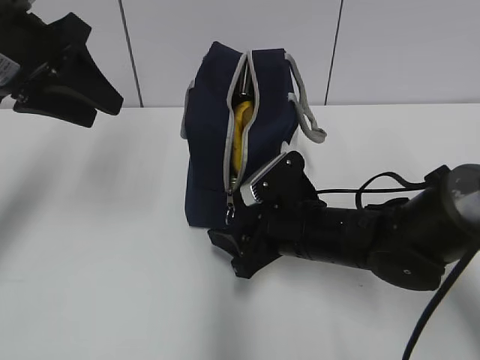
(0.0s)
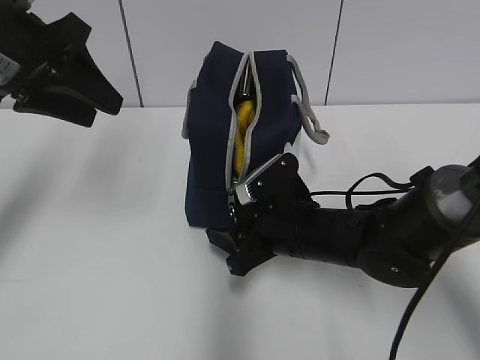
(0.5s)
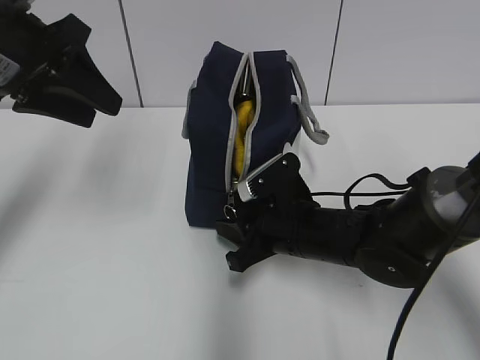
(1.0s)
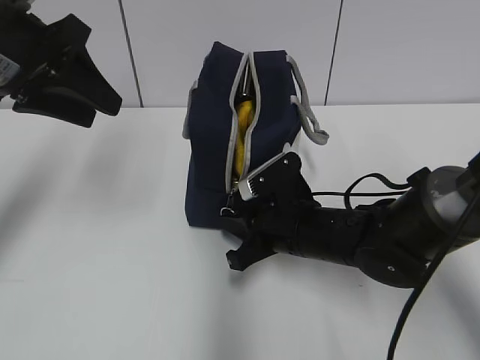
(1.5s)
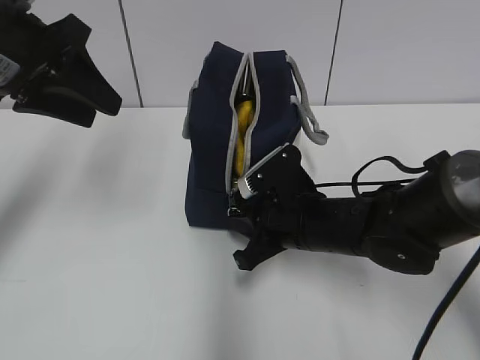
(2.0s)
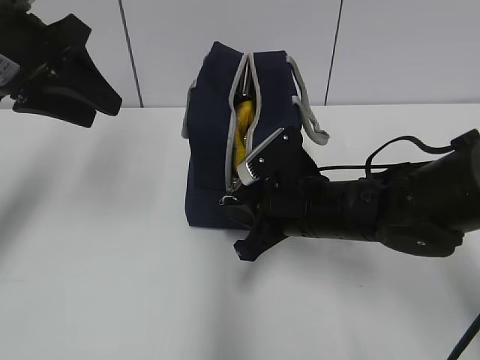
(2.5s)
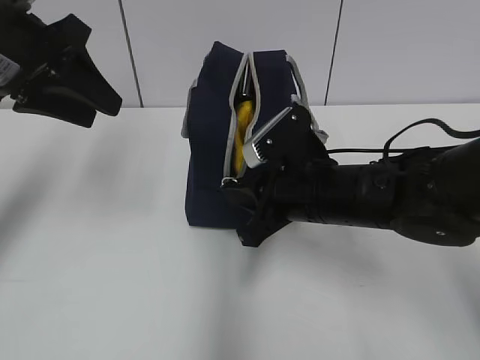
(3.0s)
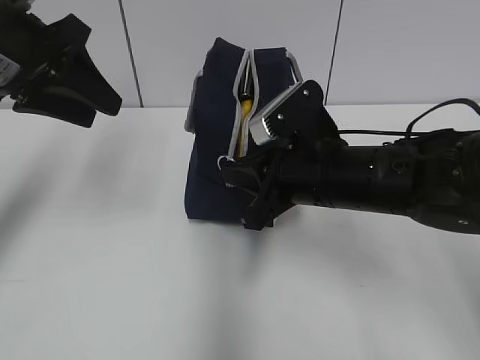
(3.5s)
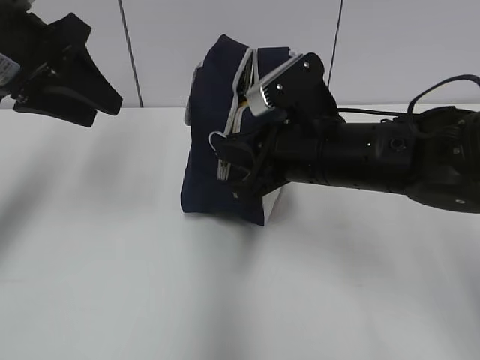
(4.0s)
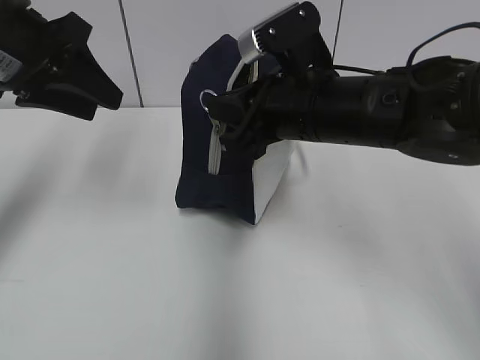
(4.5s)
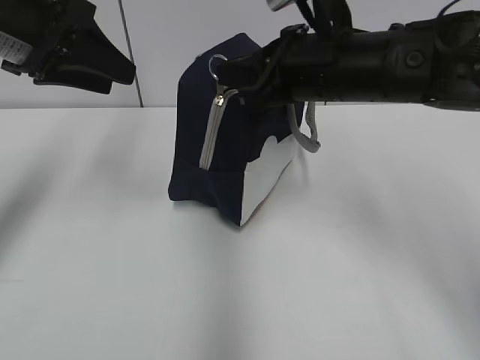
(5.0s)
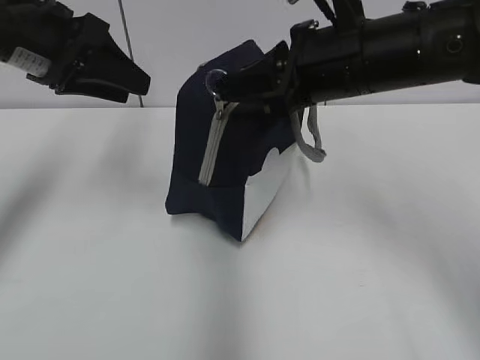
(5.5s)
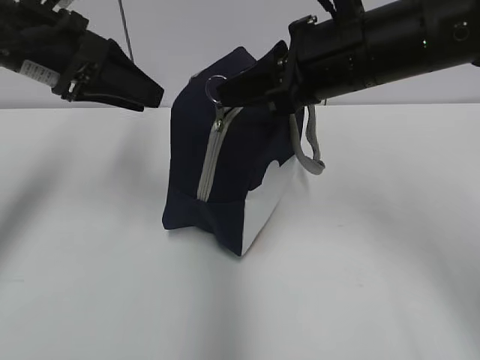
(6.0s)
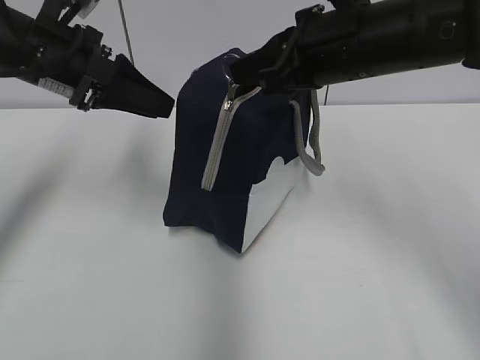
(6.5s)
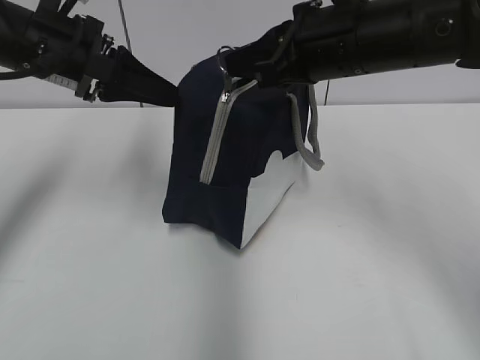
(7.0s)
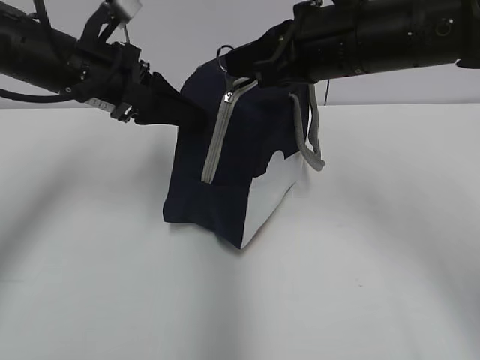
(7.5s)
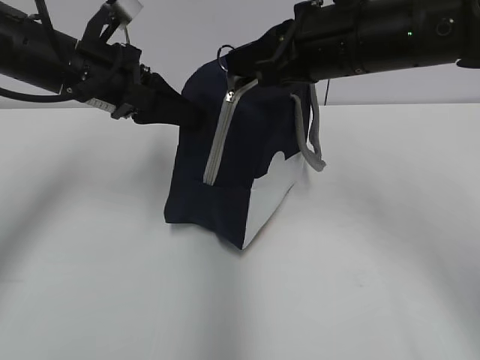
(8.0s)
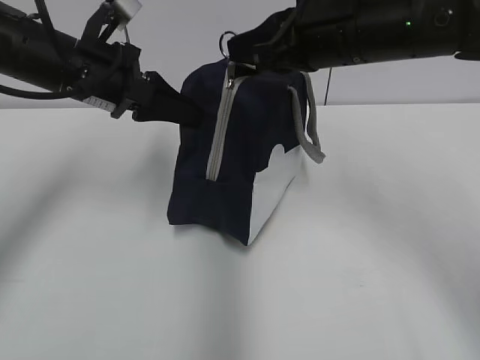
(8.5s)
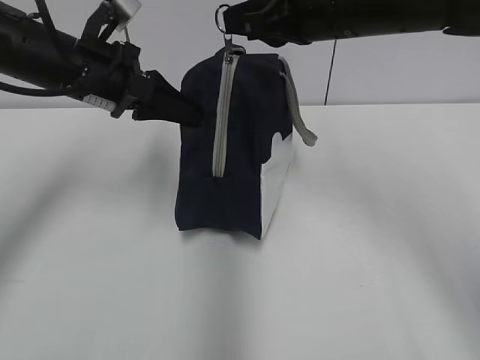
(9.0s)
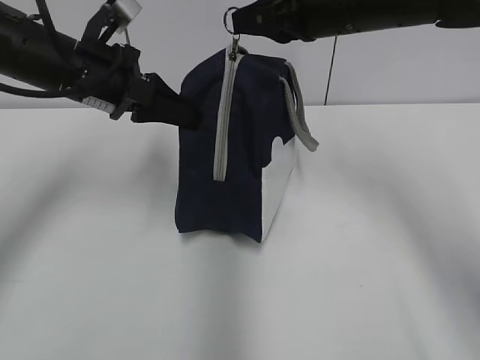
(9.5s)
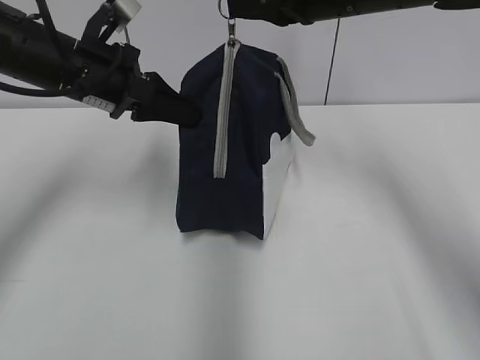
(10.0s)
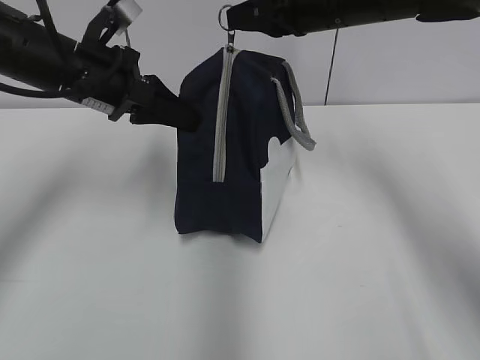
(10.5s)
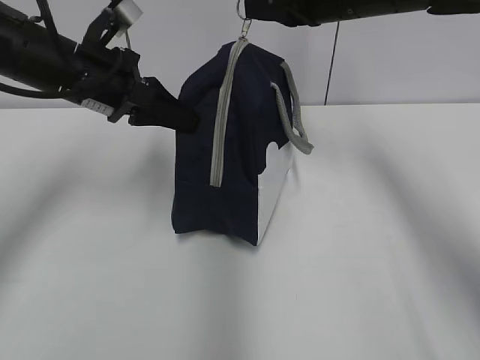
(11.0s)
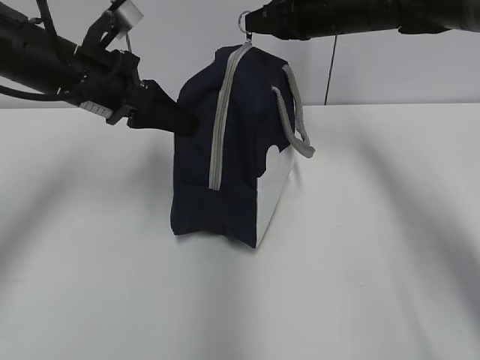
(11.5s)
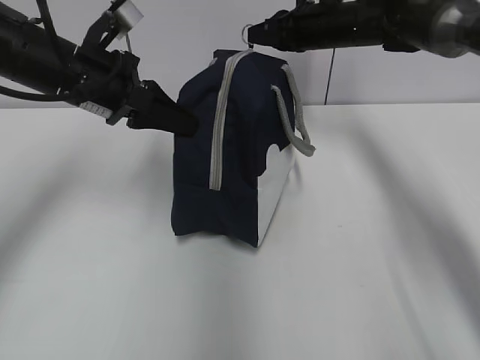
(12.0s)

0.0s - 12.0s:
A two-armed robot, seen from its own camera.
Step, 0.0s - 7.5s: Grab the lunch bag with your left hand.
0.0s - 2.0s: The right gripper closes up.
2.0s - 4.0s: The right gripper is displaced upward by some 10 cm.
4.0s - 6.0s: The right gripper travels upward by about 10 cm.
6.0s - 8.0s: The left gripper shifts by approximately 5 cm.
8.0s - 10.0s: The left gripper closes, while the right gripper heads forward, covering roughly 5 cm.
10.0s - 12.0s: The right gripper shifts roughly 15 cm forward and downward.

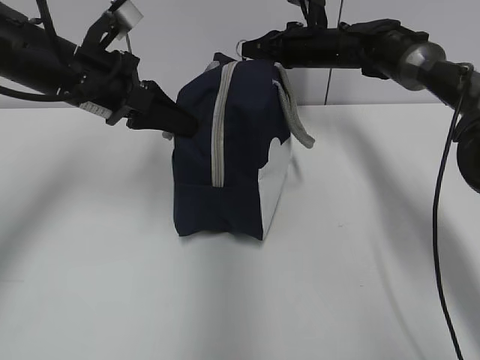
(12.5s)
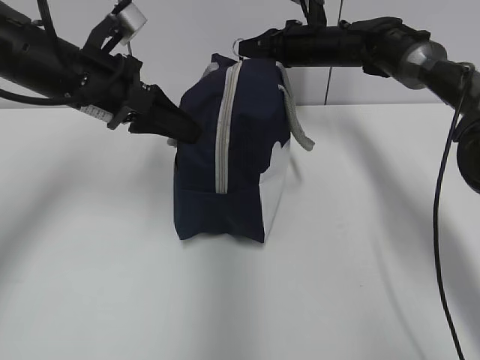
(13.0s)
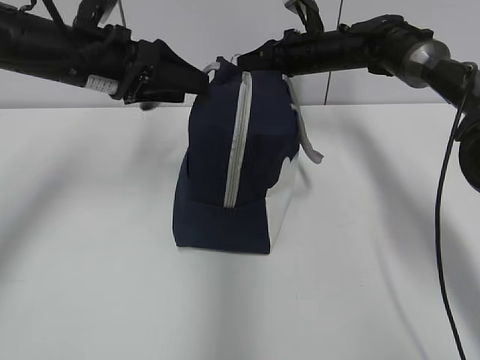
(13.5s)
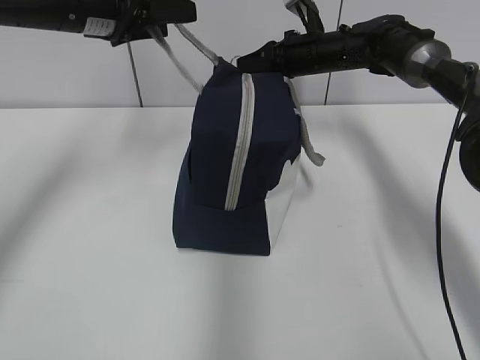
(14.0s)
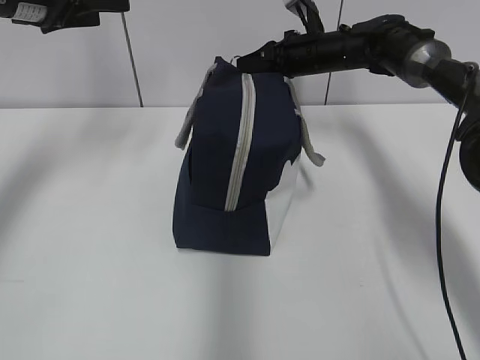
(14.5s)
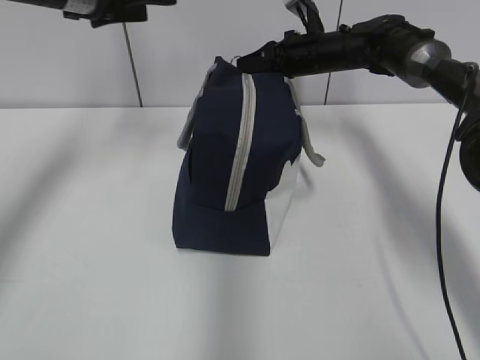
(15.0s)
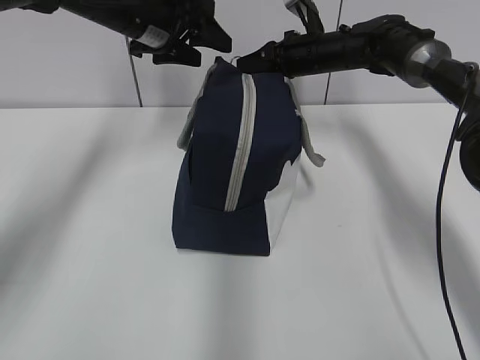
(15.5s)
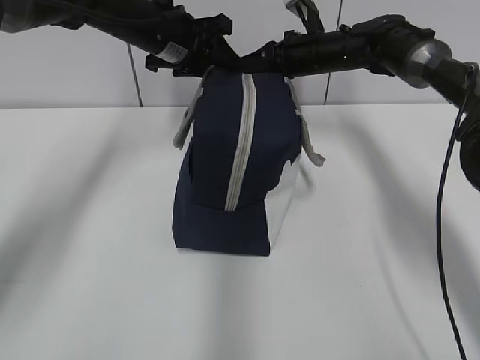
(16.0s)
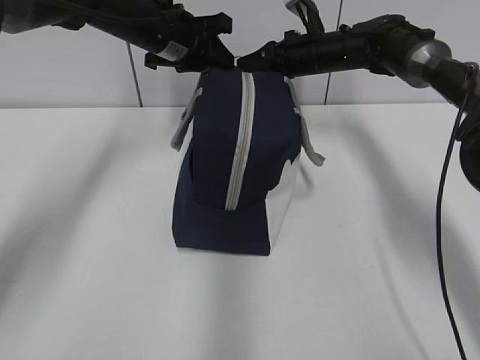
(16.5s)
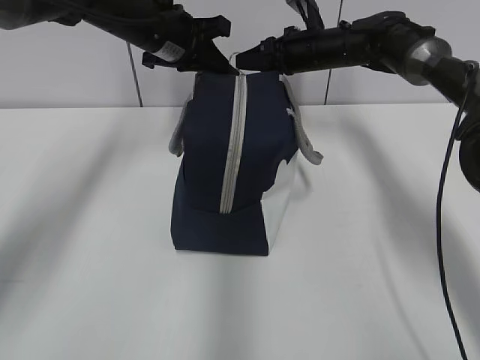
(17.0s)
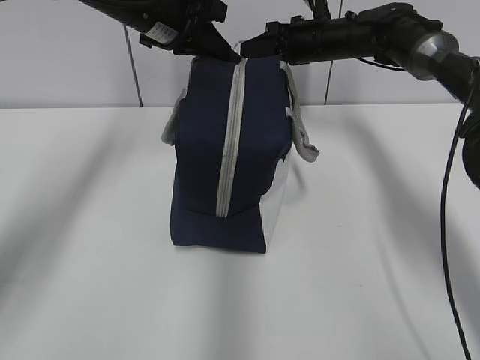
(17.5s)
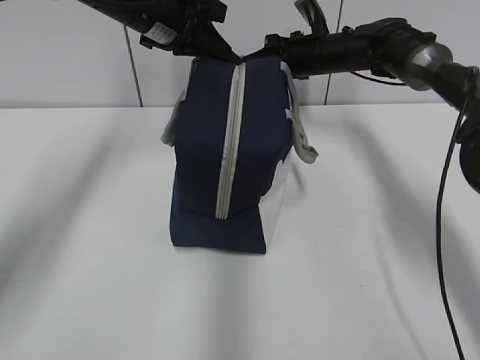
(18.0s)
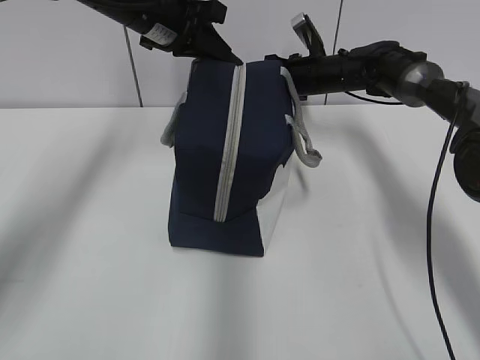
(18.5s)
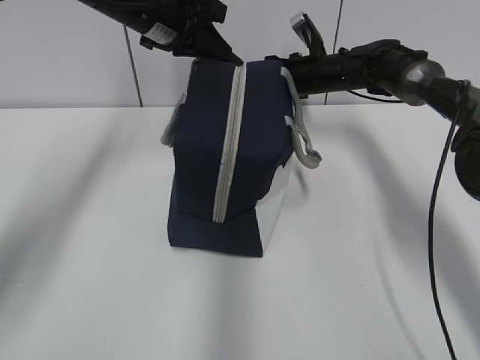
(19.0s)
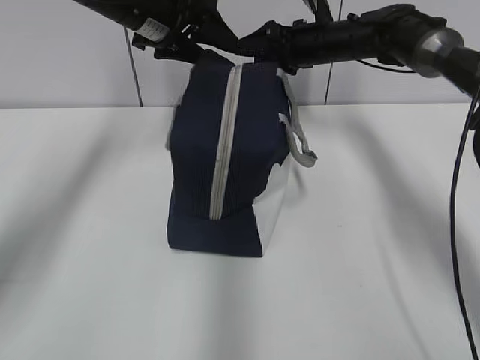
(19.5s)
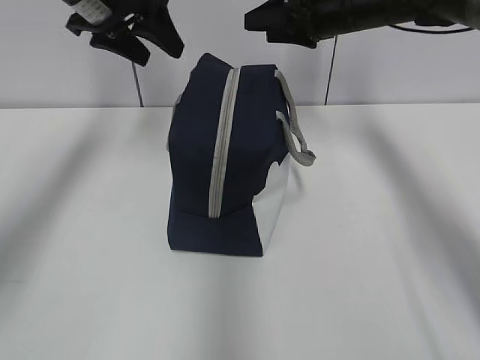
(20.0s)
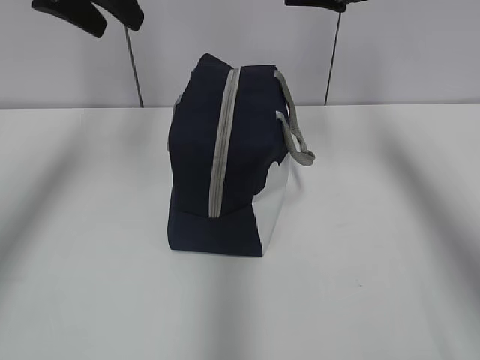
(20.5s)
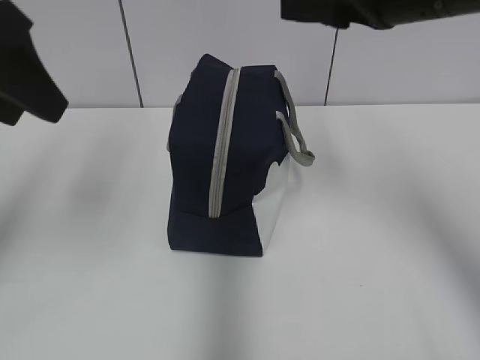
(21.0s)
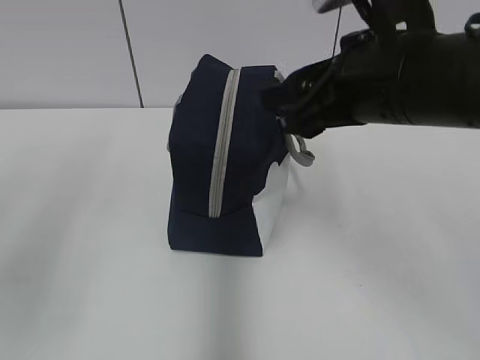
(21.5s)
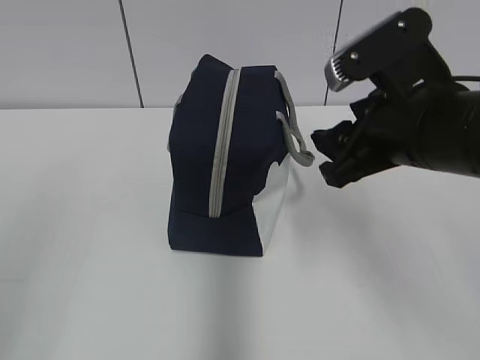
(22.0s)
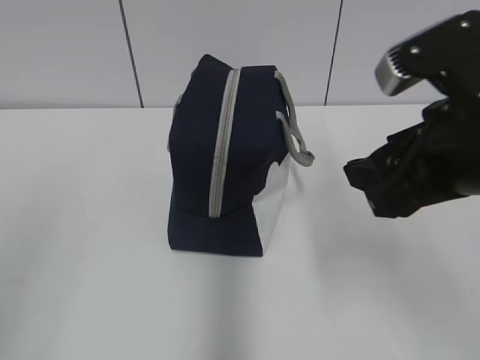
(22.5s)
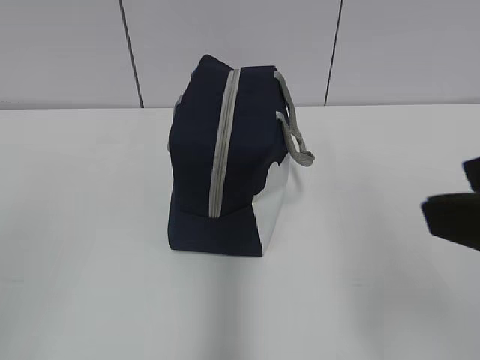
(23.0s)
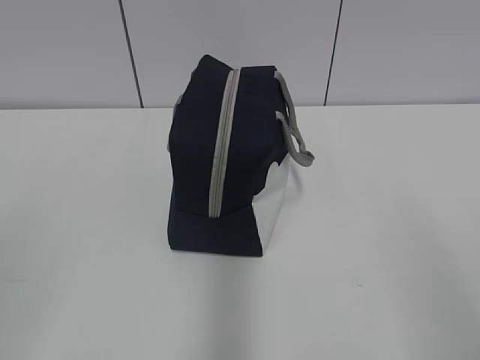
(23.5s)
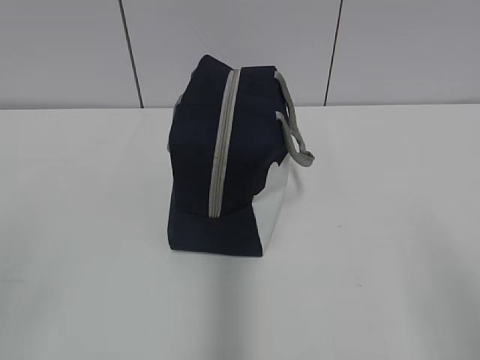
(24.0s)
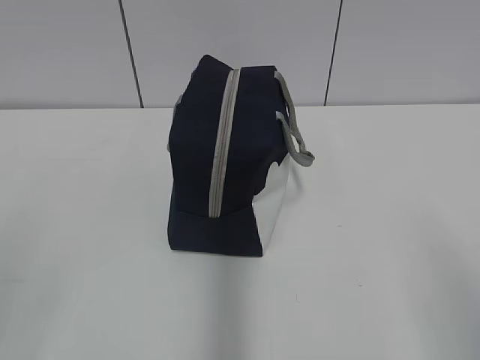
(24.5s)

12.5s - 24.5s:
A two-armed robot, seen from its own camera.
Step, 12.5s - 19.0s: Pull the zipper with your right hand.
12.5s - 14.5s: The left gripper shifts approximately 10 cm to the left, upward and forward, and opens up.
14.5s - 16.5s: The left gripper is displaced to the right, forward and downward by about 15 cm, and closes.
16.5s - 18.5s: The left gripper closes.
18.5s - 20.5s: The right gripper shifts approximately 25 cm upward and backward, and opens up. Meanwhile the left gripper is displaced upward, backward and to the left by roughly 15 cm, and opens its fingers.
20.5s - 22.5s: Both grippers move backward, some 30 cm.
22.5s - 24.5s: The right gripper shifts about 20 cm backward and to the right.

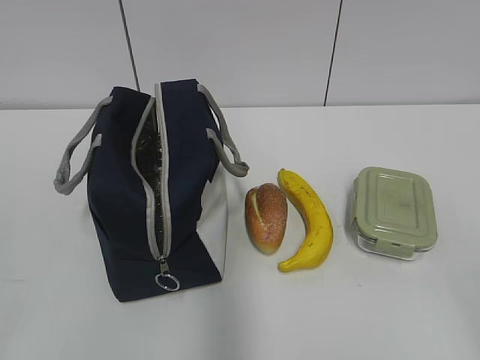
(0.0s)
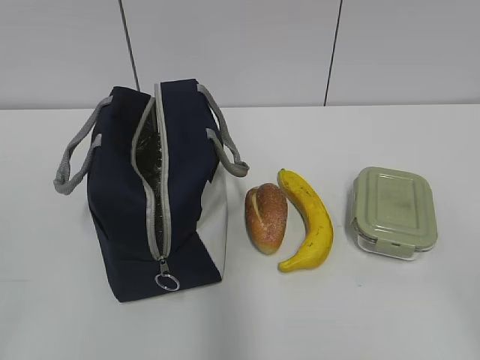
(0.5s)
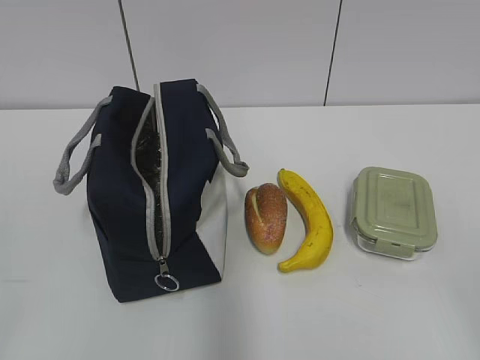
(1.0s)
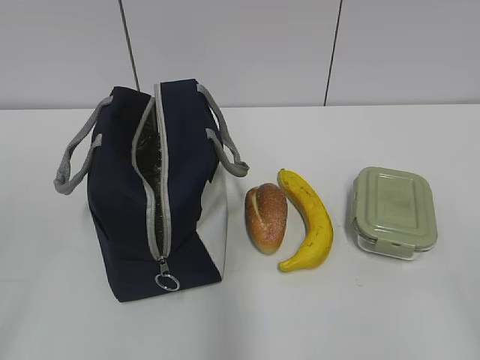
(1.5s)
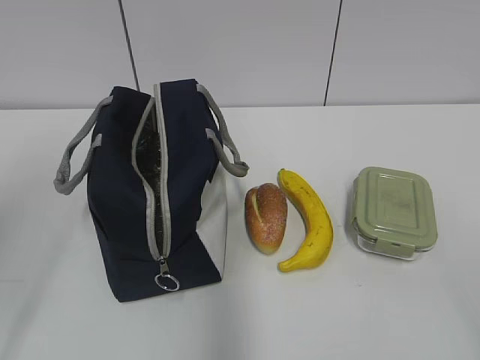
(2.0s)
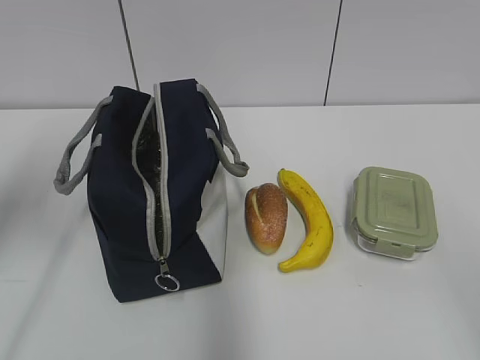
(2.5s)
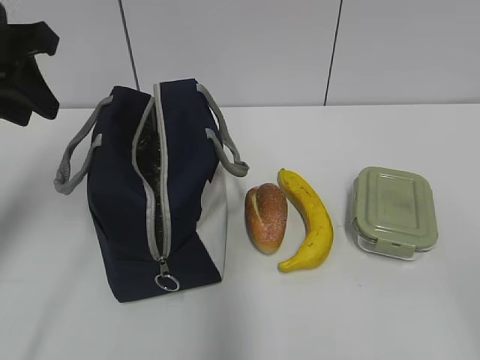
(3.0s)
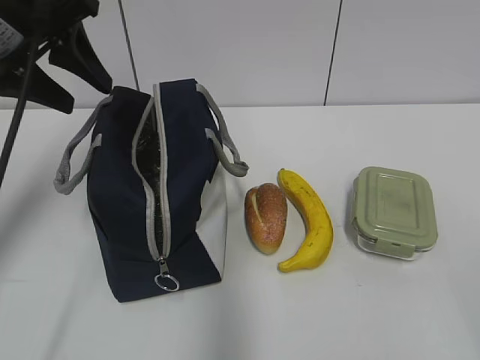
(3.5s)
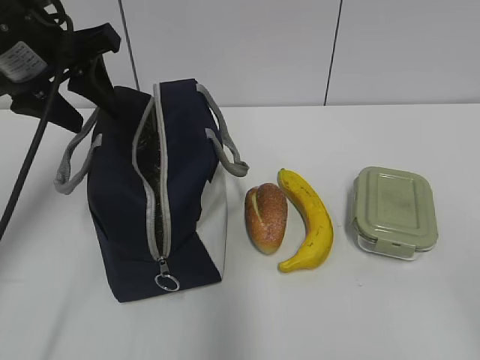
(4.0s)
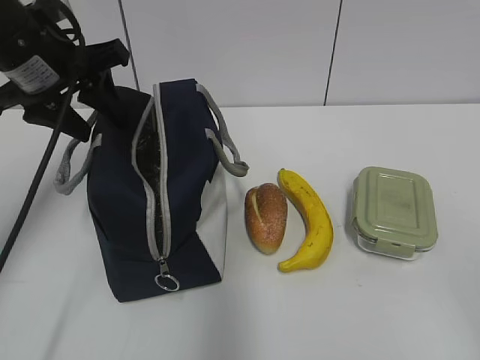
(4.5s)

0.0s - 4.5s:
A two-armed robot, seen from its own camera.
2.0s - 4.5s: The left gripper is displaced forward and to the right by about 25 cm.
